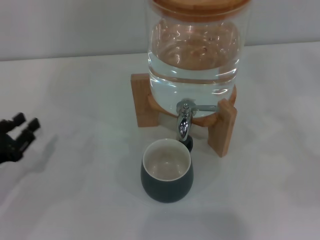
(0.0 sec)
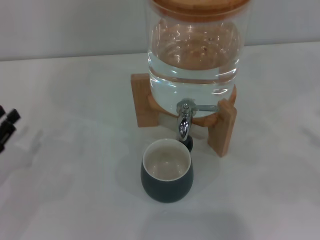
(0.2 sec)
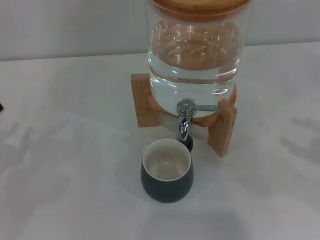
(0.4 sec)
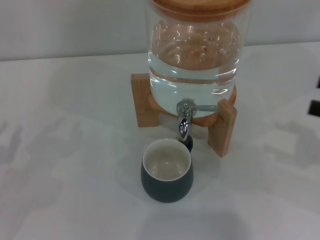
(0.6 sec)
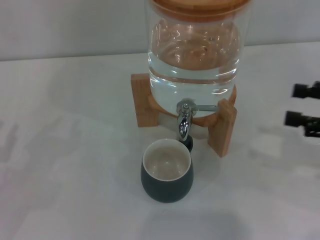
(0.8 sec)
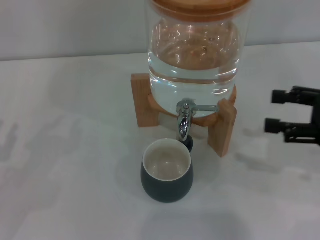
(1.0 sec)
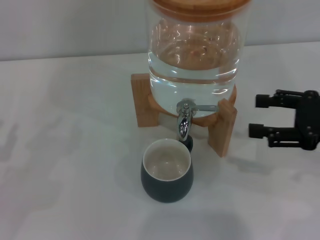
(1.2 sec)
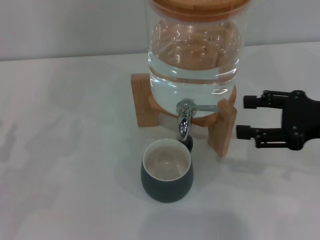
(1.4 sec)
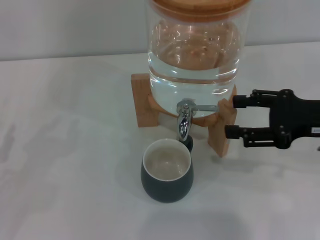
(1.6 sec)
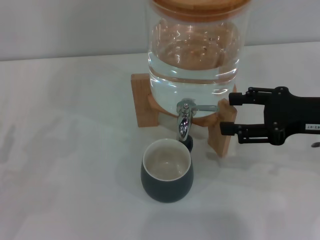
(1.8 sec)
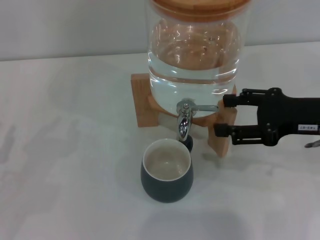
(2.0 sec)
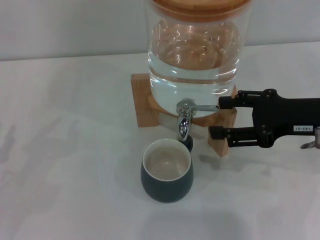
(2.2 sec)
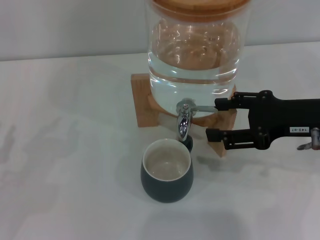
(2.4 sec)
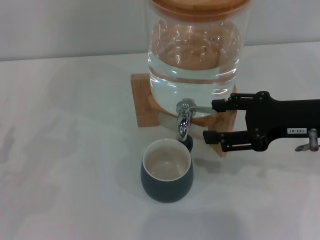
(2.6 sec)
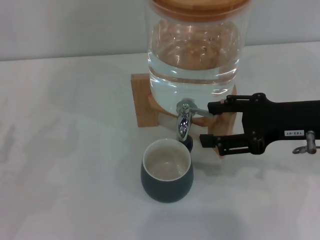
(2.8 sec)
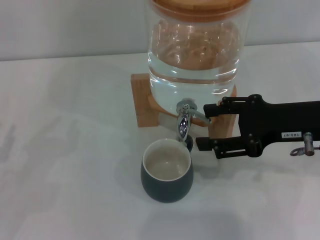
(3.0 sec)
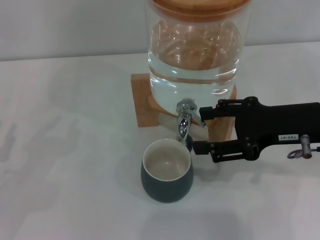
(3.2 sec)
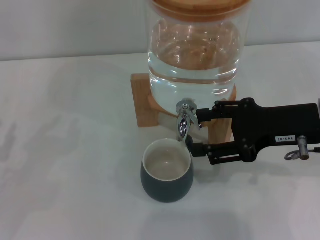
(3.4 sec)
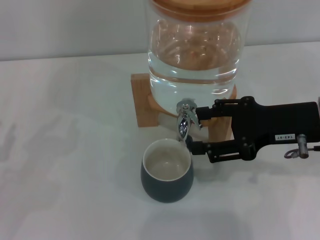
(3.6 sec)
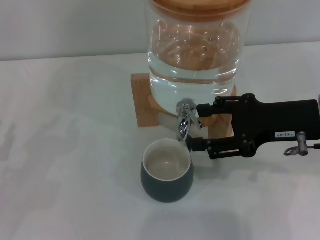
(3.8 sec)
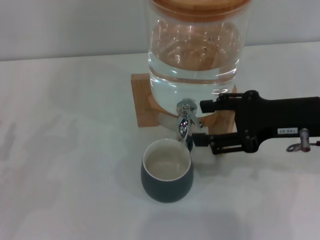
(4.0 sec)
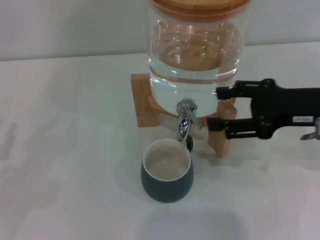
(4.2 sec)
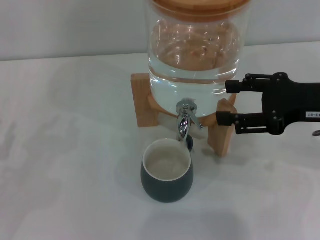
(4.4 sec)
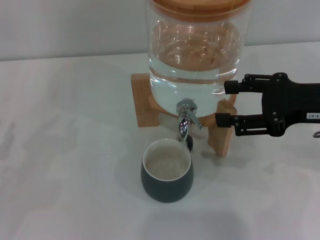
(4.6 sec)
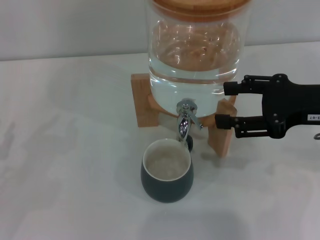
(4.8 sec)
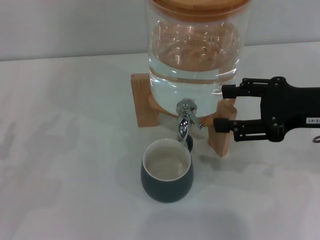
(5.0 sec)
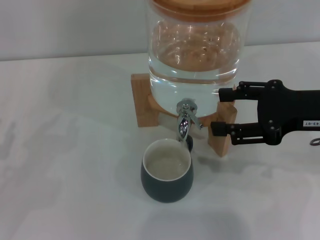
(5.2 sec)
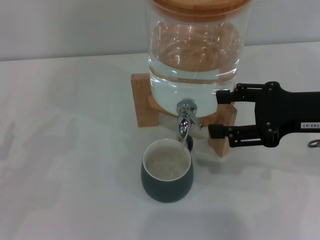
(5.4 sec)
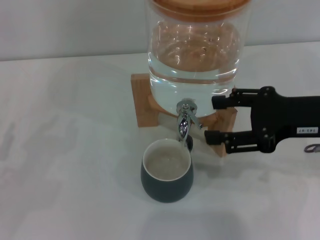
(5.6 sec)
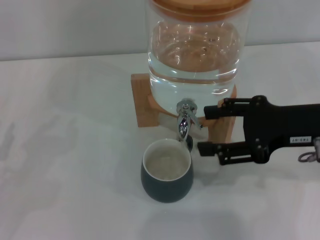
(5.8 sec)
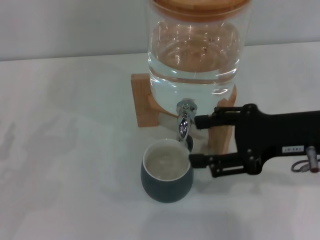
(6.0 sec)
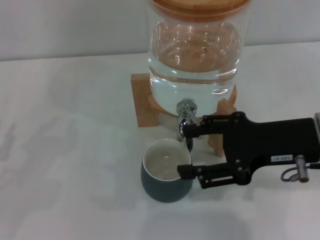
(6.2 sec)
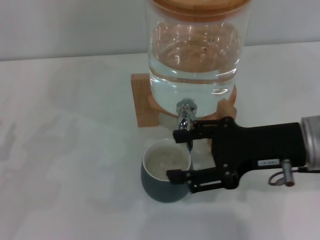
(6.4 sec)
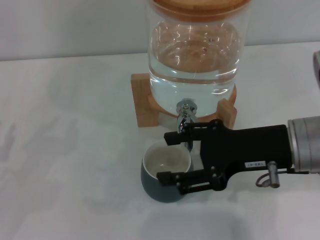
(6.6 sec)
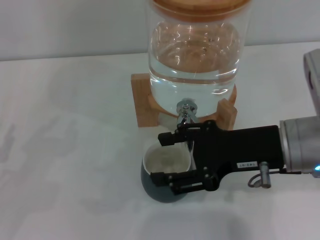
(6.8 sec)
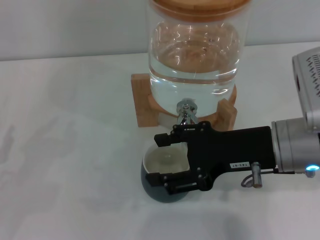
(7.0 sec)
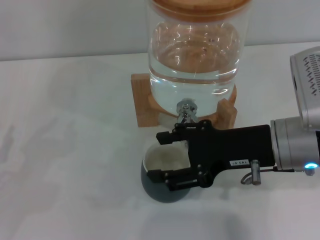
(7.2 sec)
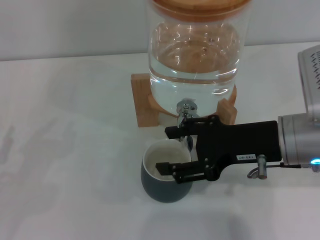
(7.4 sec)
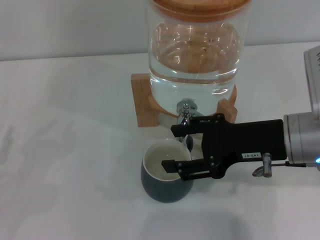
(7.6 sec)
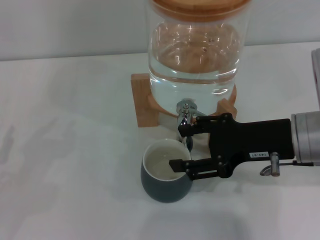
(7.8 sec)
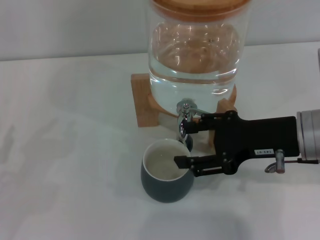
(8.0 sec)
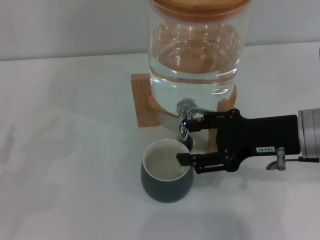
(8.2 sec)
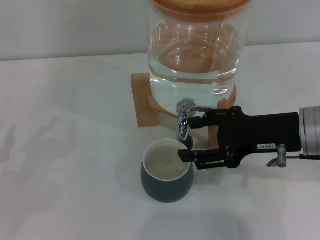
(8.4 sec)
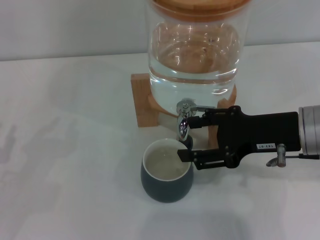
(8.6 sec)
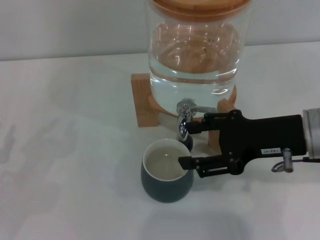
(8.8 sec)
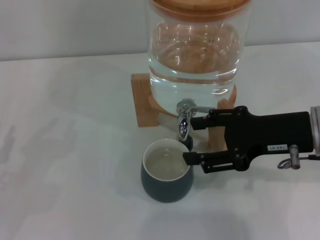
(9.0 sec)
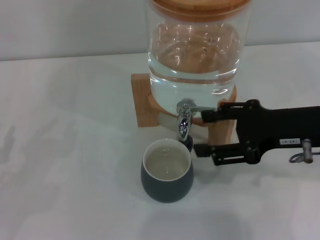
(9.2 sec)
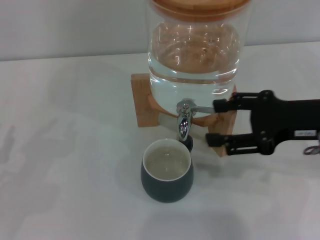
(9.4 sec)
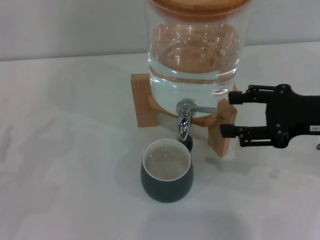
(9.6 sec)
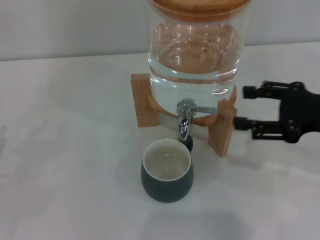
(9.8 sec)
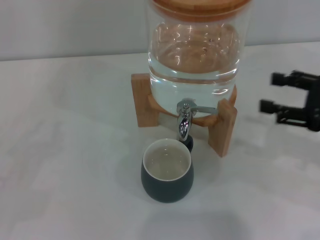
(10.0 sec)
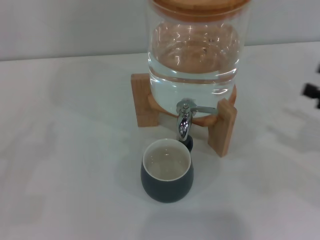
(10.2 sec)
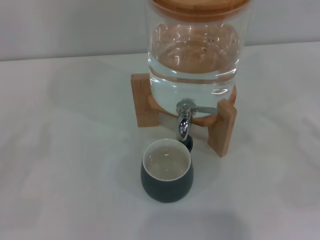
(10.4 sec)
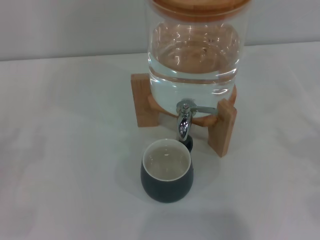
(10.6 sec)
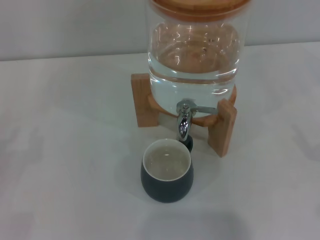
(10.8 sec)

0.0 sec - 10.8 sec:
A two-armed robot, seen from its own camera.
Task of the whole recording: the left gripper pick up the black cup and place it horizontally under the faucet, the right gripper turn on the faucet to fill the cup, and then turn off the faucet.
Step, 0.0 sec - 6.2 sec: Open the dispenser valve and fill the cup with water with the right gripper.
Step, 6.4 sec - 9.4 sec: Close the dispenser valve with the right gripper.
0.0 sec - 1.6 sec: The right gripper moves to the left and forward, about 20 cm; the left gripper ends up roughly 5 cm from where it was.
1.6 sec - 4.6 sec: The grippers stay close to where they were, moving slightly.
4.6 sec - 6.2 sec: The right gripper goes about 5 cm to the left.
6.2 sec - 9.2 sec: There are only small adjustments of the grippers.
9.2 sec - 10.8 sec: The left gripper ends up roughly 5 cm from where it was. Meanwhile the right gripper heads to the right, downward and backward, covering about 25 cm.

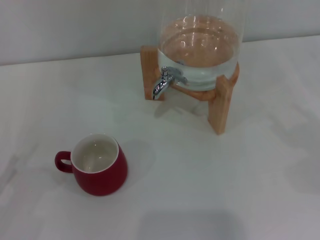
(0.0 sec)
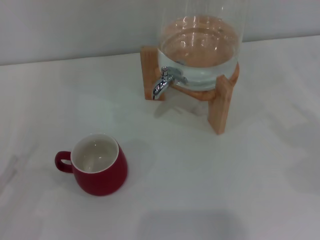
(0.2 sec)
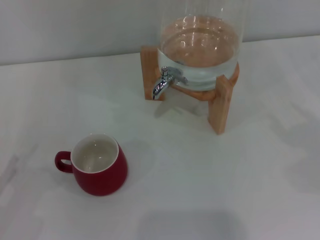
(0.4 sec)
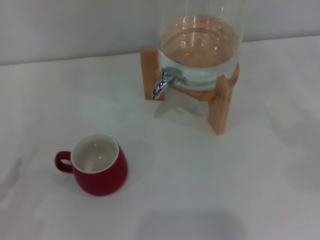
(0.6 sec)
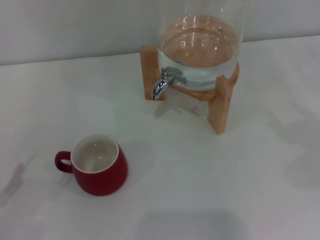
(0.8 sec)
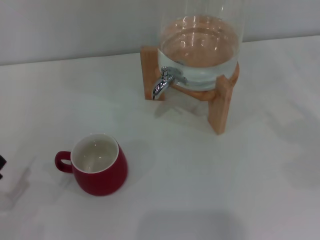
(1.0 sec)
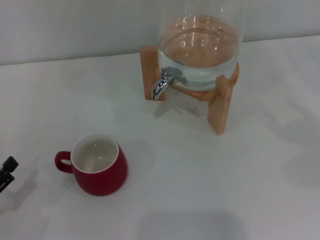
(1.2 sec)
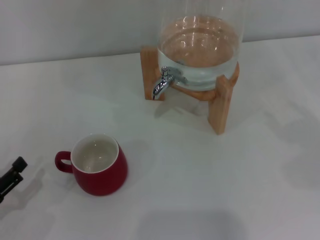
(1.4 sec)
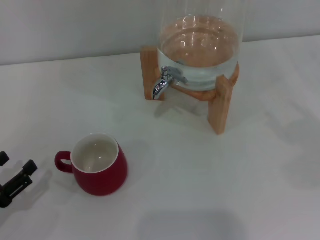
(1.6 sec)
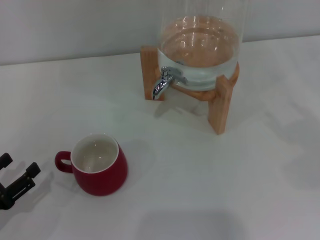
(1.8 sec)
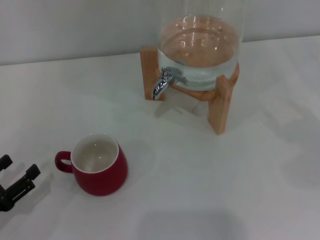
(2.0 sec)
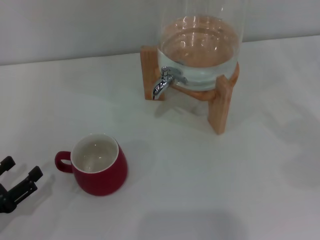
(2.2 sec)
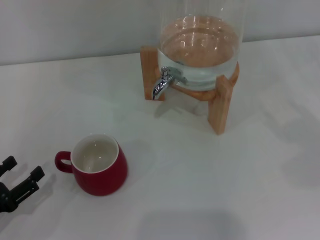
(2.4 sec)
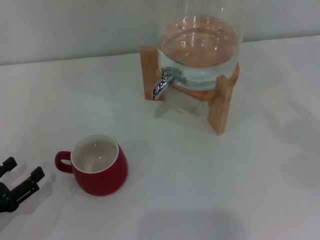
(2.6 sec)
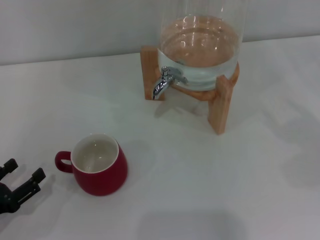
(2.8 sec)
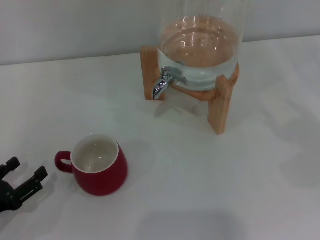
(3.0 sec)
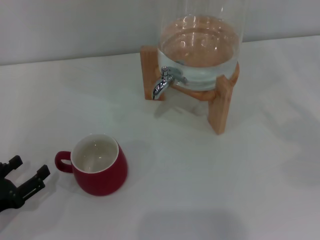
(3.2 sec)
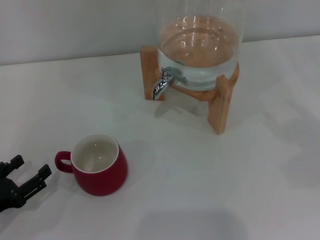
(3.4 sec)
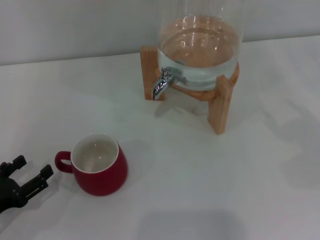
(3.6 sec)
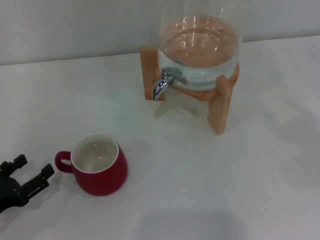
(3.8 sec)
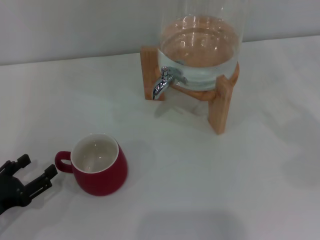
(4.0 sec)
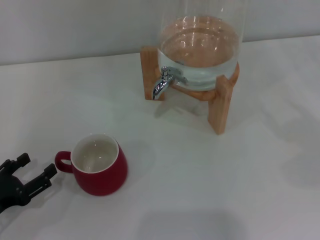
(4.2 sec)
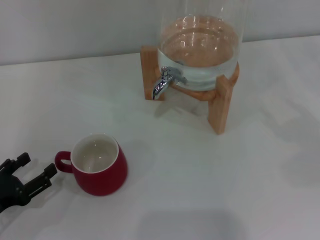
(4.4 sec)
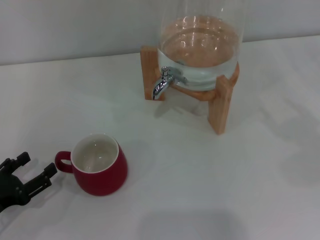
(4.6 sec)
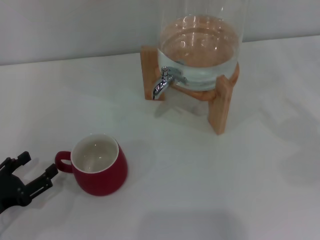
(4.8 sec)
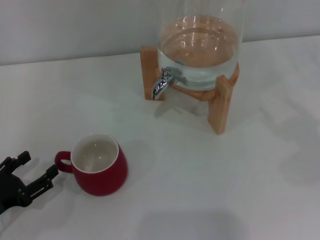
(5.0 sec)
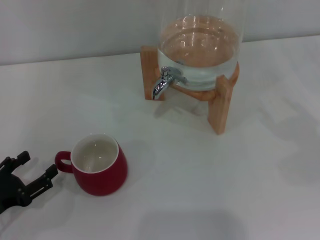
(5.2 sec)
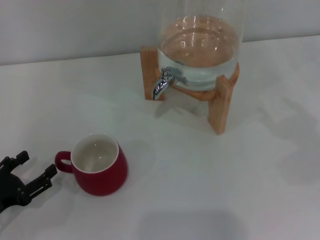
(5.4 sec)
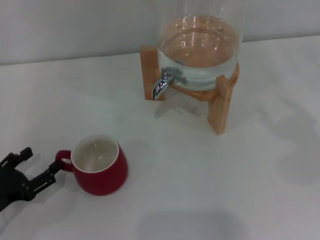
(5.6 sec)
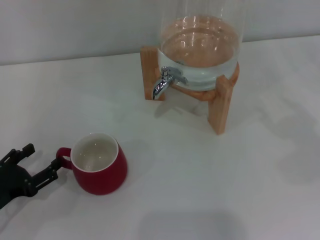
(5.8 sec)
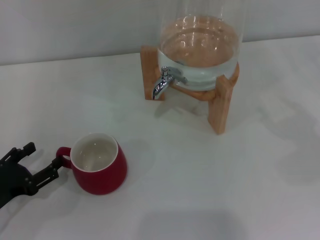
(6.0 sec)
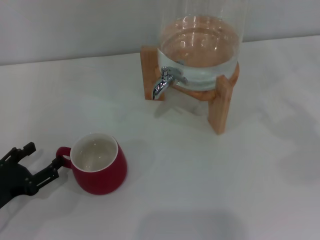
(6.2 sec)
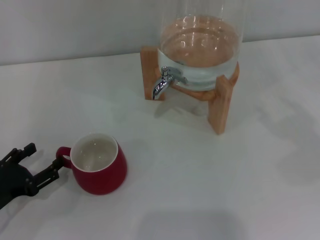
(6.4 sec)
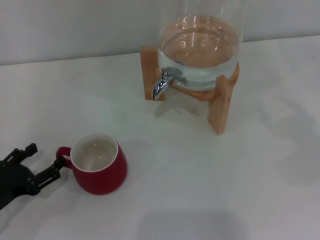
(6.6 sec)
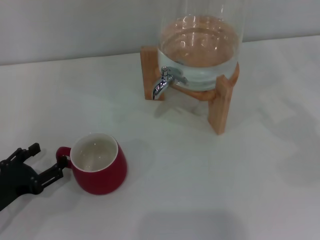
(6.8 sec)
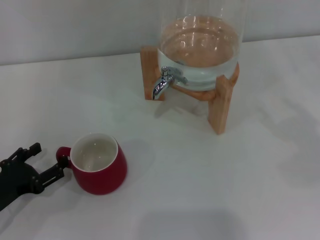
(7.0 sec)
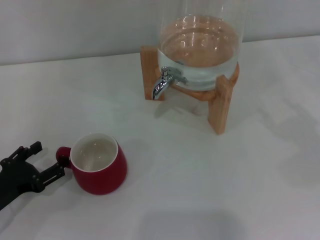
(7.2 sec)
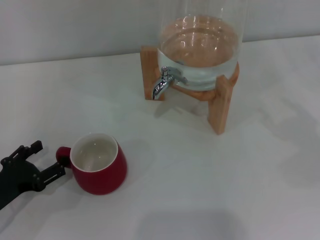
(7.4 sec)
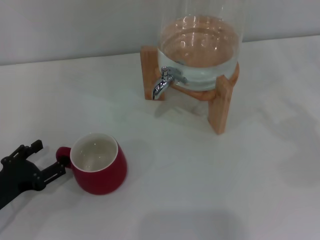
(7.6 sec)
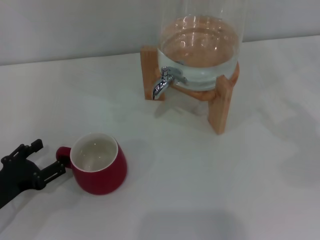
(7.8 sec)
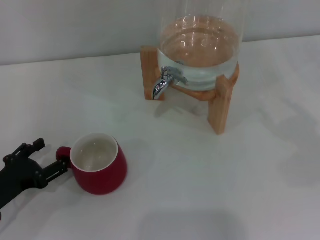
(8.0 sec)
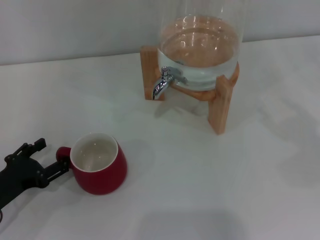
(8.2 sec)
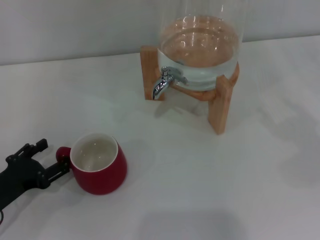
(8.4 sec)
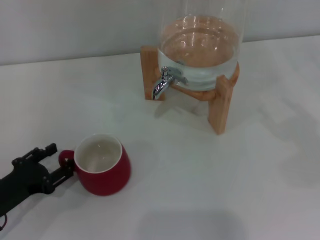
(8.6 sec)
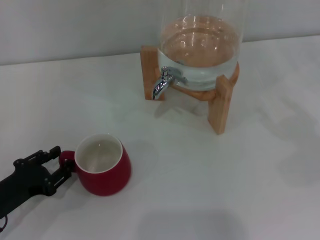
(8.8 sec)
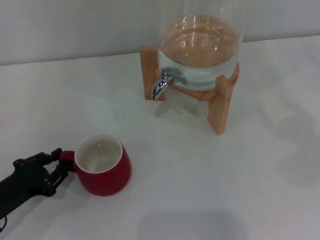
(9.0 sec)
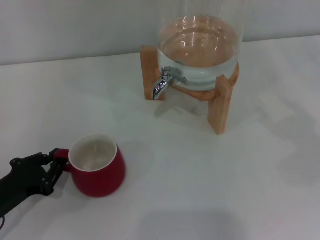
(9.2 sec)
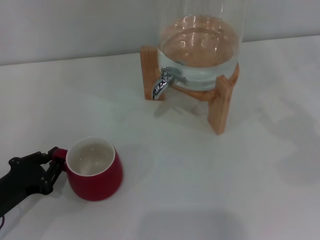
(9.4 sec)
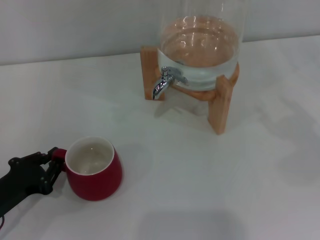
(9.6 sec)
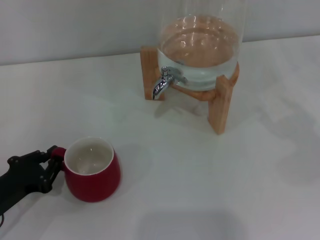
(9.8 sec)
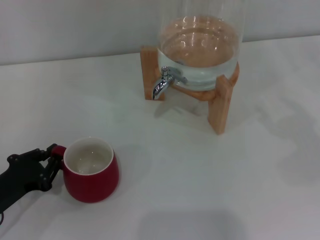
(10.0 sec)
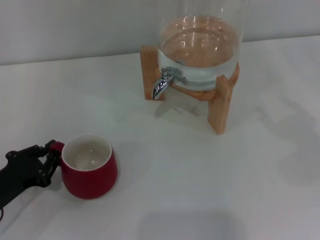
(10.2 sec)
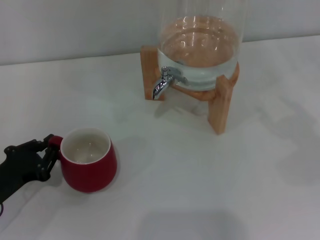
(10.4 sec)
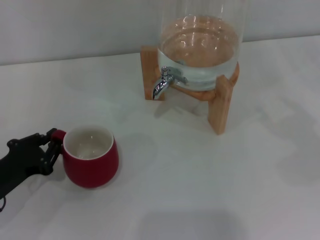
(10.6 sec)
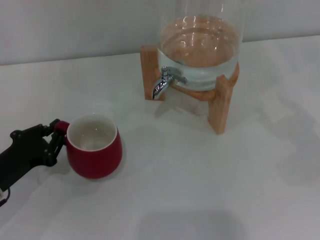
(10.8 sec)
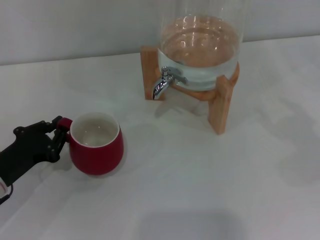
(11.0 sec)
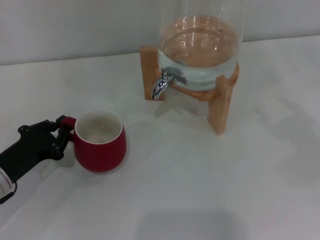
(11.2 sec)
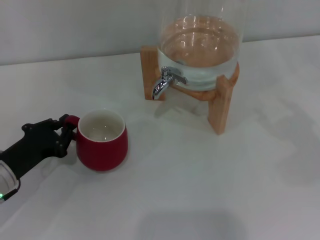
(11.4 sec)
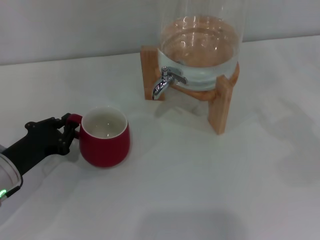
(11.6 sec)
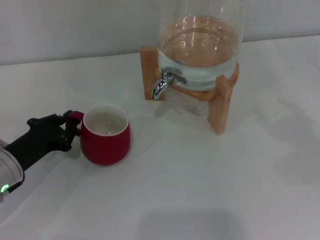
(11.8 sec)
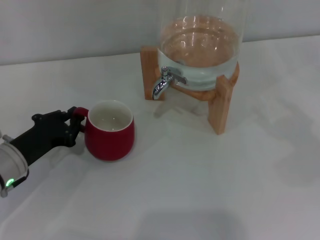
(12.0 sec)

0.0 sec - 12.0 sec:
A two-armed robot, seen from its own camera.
Task of the whole recording: the left gripper pick up the red cup and place it horizontally under the faucet, the right gripper turn on the faucet to fill the cup, and then turn off the faucet.
0.0 sec - 1.6 sec: The grippers make only small movements.
1.6 sec - 3.0 sec: The grippers make only small movements.
3.0 sec - 4.4 sec: Neither gripper changes place.
4.4 sec - 6.0 sec: The grippers move only a little.
6.0 sec - 7.6 sec: Both grippers stay about where they are.
7.6 sec - 9.0 sec: The left gripper closes its fingers.
9.0 sec - 10.4 sec: The left gripper closes up.
10.4 sec - 12.0 sec: The left gripper goes some 5 cm forward.
